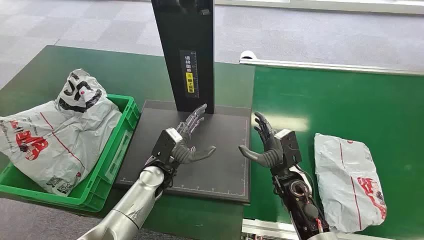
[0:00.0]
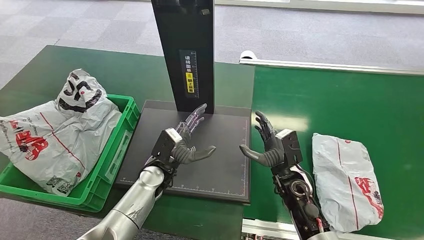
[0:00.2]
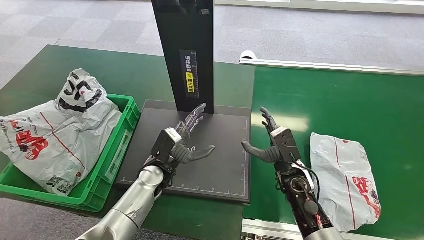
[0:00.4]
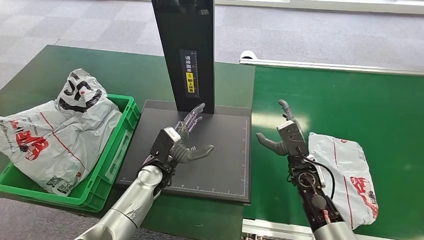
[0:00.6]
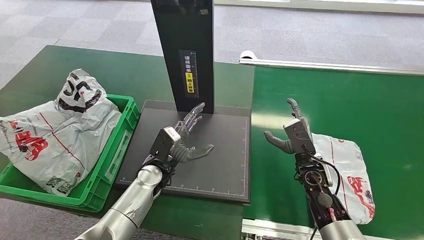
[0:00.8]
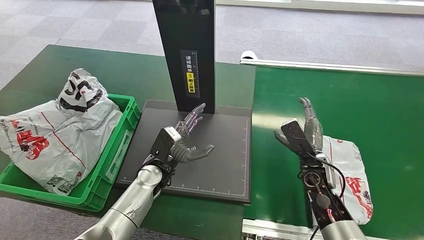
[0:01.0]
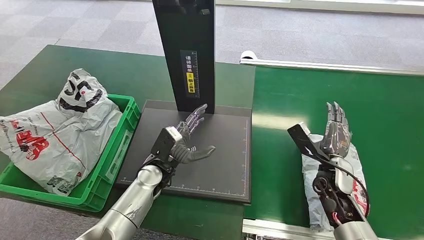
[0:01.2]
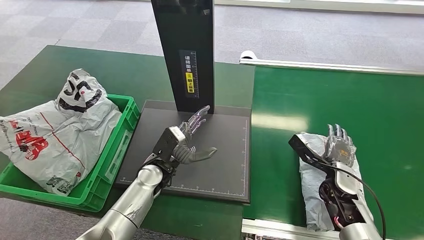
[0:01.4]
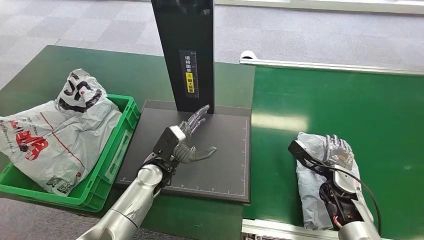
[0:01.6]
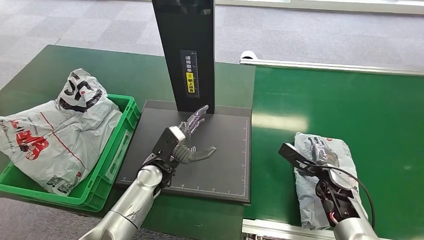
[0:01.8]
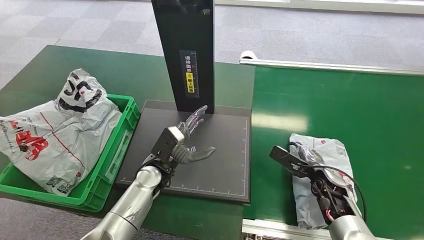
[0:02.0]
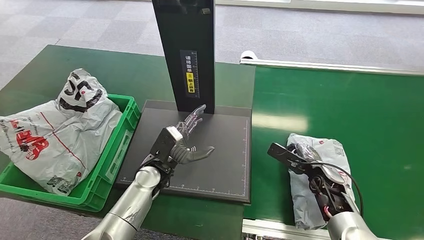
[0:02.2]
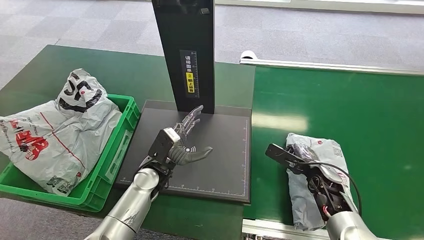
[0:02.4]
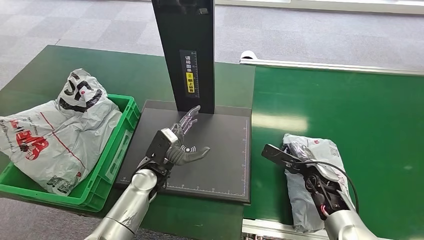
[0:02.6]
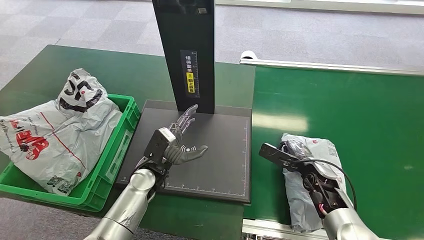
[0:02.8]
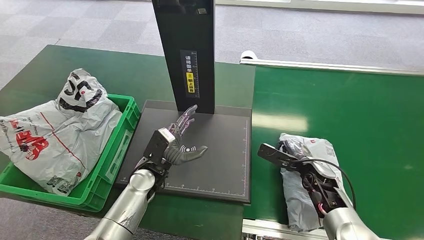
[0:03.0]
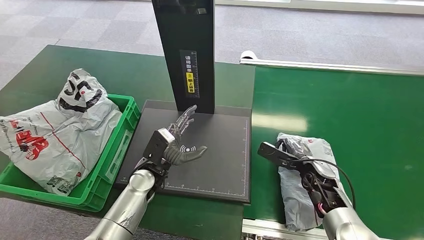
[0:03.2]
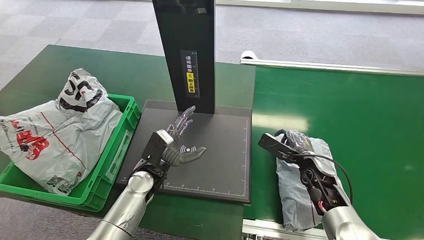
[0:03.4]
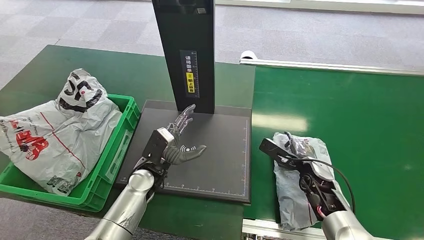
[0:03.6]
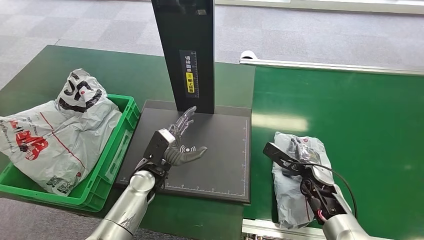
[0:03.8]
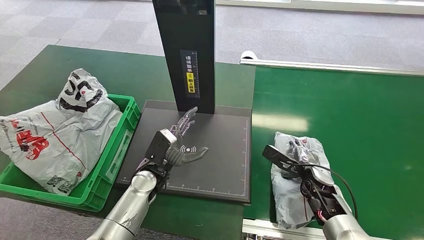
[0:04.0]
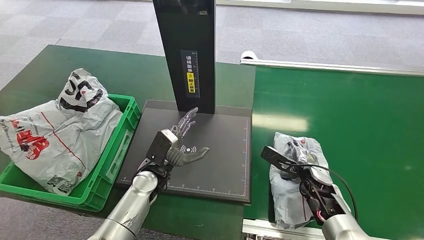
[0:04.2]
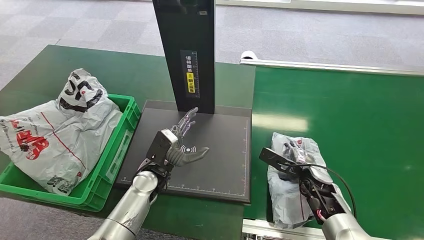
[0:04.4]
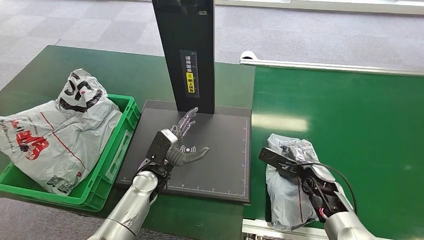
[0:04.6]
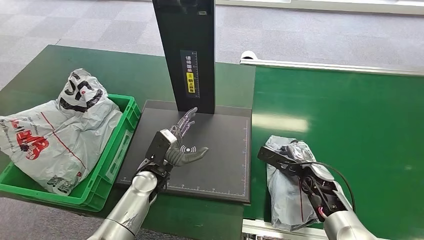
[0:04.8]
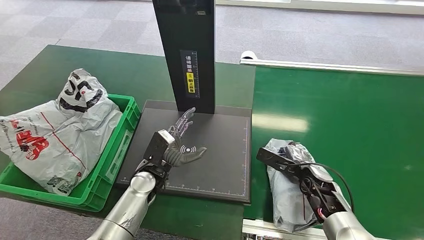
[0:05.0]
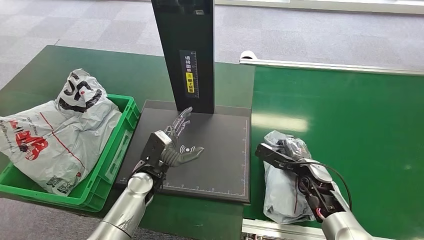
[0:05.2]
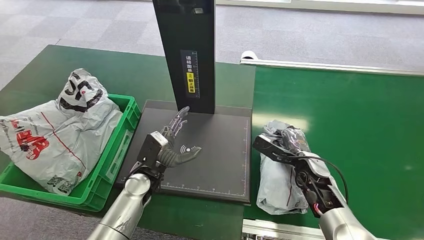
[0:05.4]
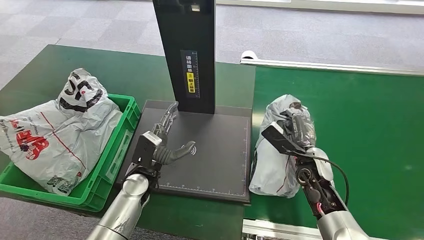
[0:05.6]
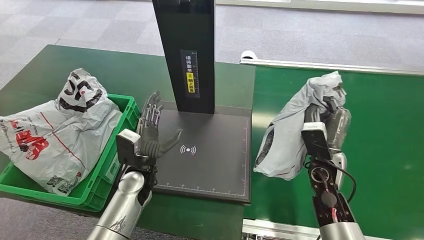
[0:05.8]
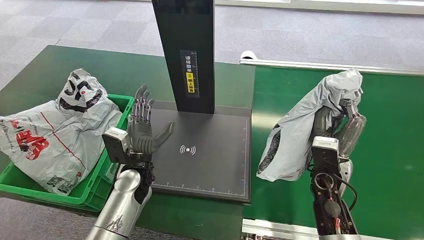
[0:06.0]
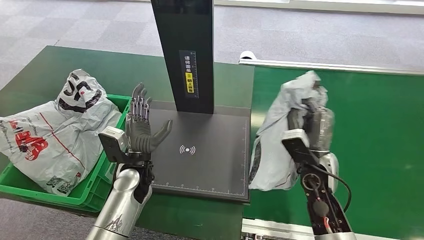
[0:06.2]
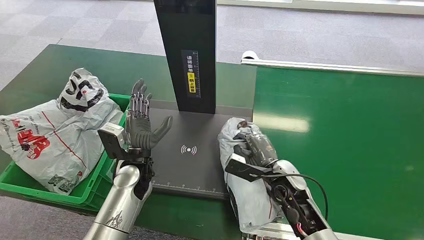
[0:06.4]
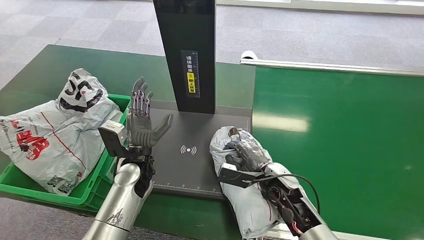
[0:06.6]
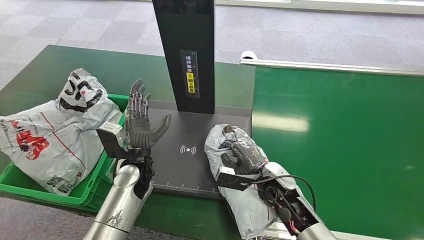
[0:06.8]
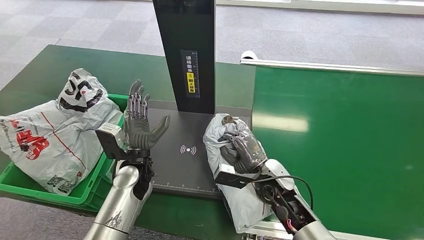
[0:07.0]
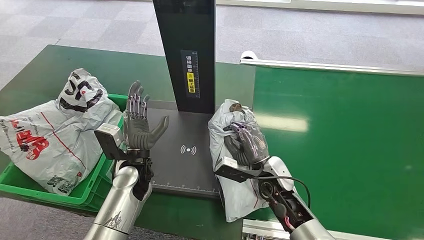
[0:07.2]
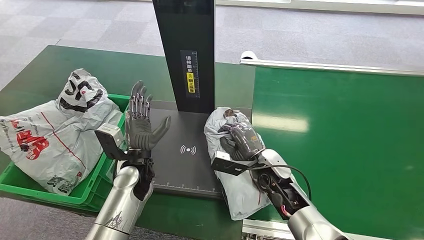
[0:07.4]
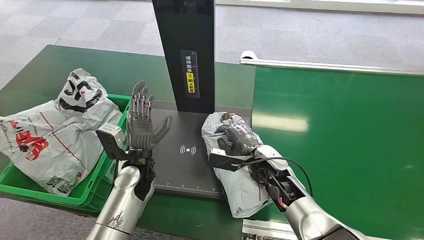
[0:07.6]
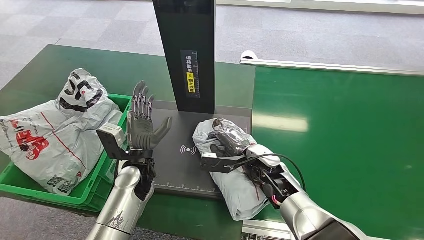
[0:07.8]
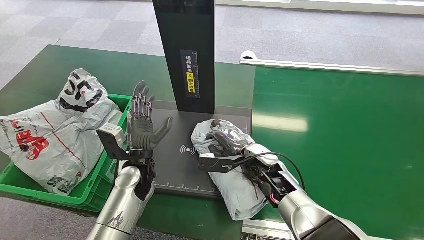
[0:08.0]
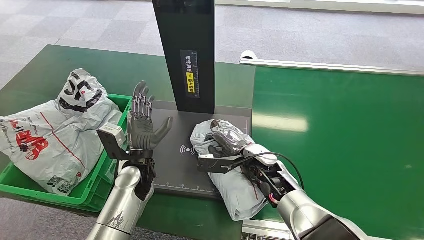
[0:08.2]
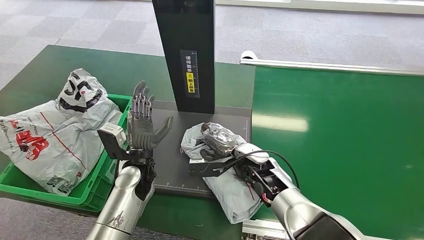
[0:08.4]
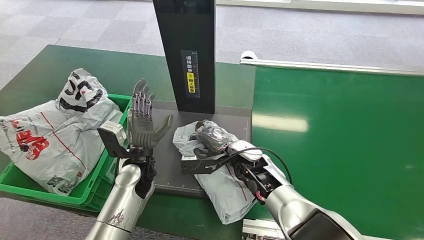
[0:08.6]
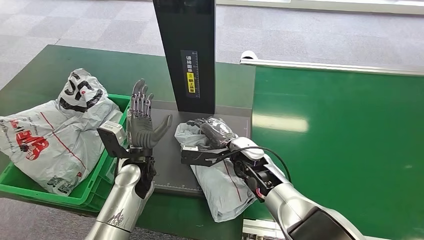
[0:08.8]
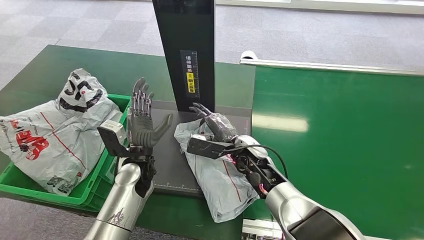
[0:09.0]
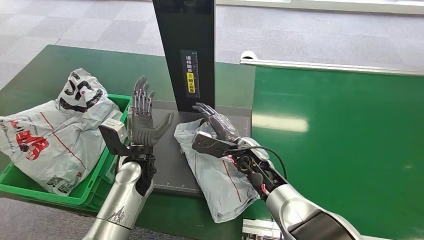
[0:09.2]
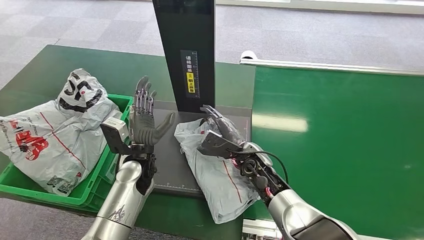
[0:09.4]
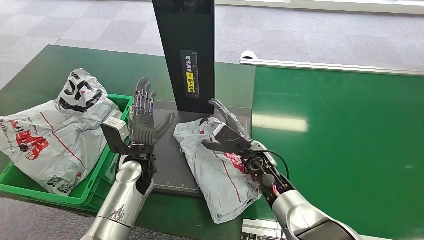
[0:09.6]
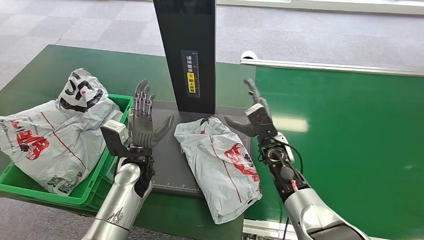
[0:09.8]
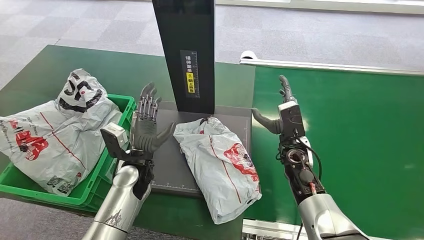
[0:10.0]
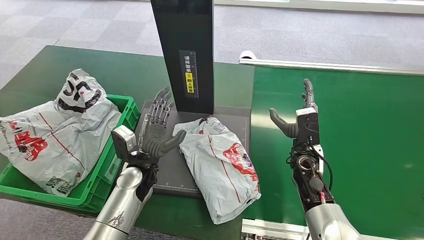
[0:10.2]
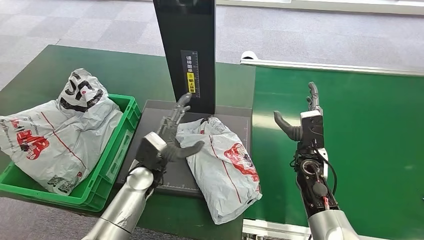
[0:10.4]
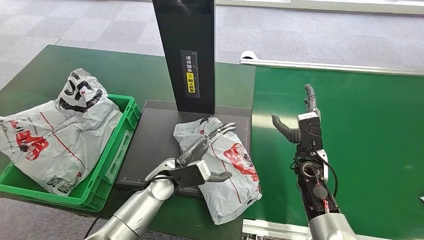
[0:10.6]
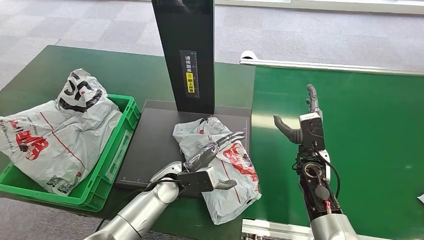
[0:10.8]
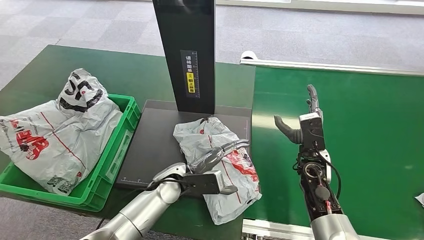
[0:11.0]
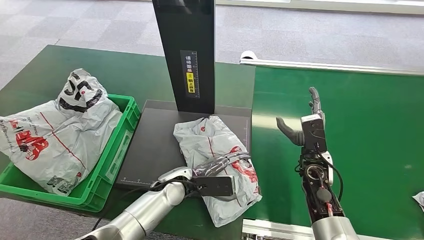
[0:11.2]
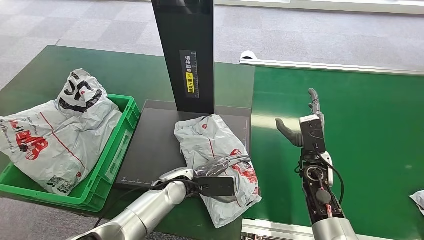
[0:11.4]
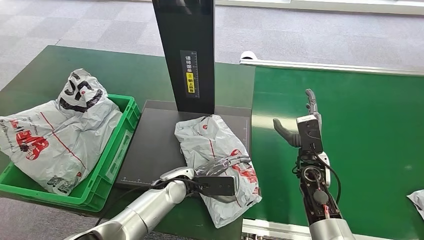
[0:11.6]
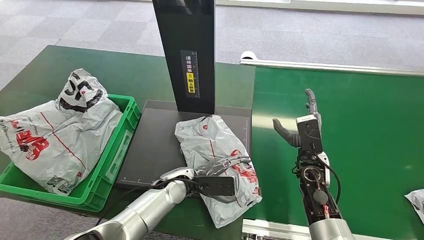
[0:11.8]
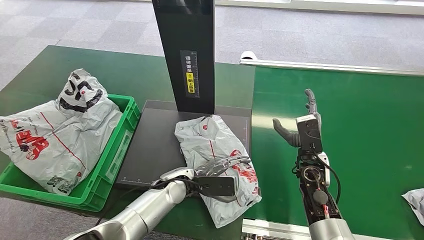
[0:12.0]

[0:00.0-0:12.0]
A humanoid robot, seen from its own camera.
Step, 0:00.0 to 0:06.0: Pick up the package from the conveyor belt.
Step, 0:06.2 to 0:09.8: Place the package onto the inbound machine.
0:01.6 to 0:03.0: The right hand moves approximately 5 cm.
0:03.0 to 0:04.4: The hands move only a little.
0:04.4 to 0:06.0: The right hand goes approximately 10 cm upward.
0:06.0 to 0:07.6: The right hand shifts roughly 10 cm to the left and downward.
0:07.6 to 0:09.0: The right hand goes roughly 5 cm to the left.
0:09.0 to 0:10.4: The right hand is displaced to the right by some 15 cm.
0:10.4 to 0:12.0: The left hand moves to the right, about 5 cm.

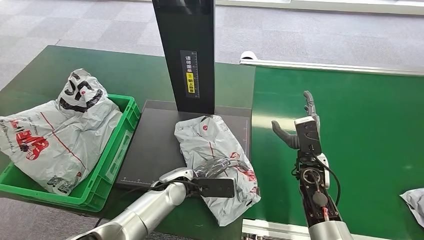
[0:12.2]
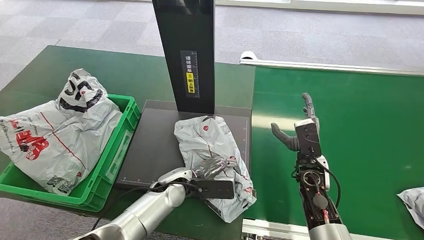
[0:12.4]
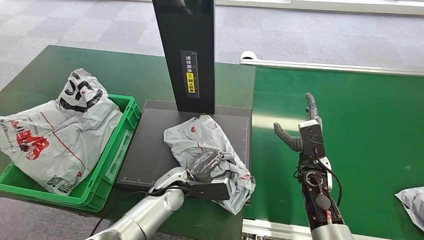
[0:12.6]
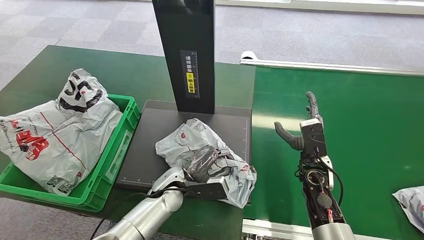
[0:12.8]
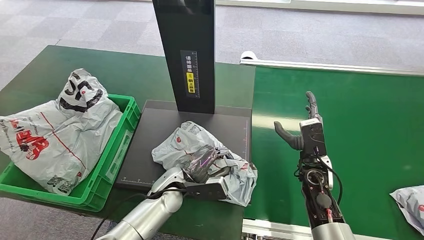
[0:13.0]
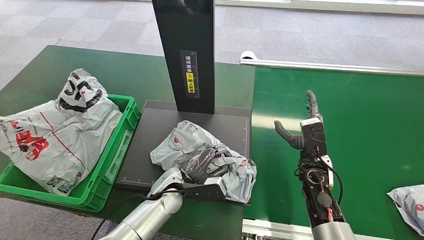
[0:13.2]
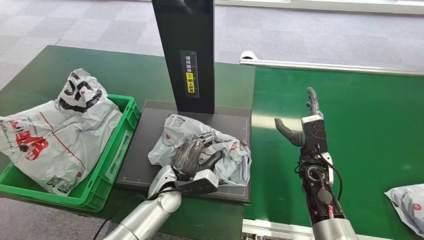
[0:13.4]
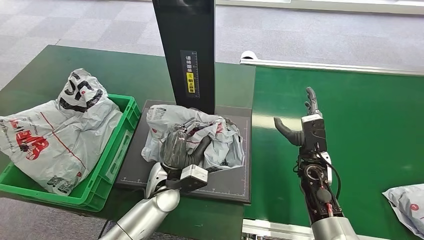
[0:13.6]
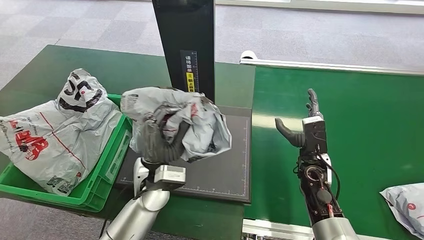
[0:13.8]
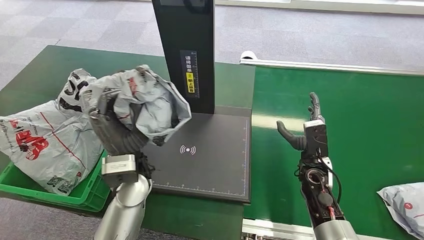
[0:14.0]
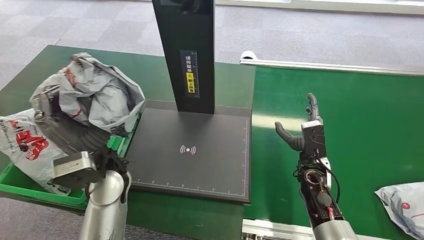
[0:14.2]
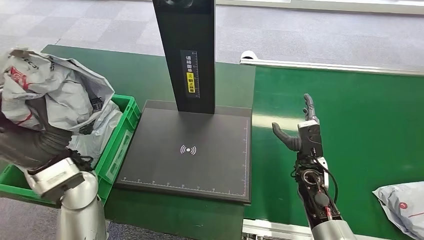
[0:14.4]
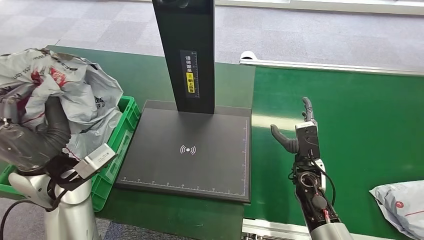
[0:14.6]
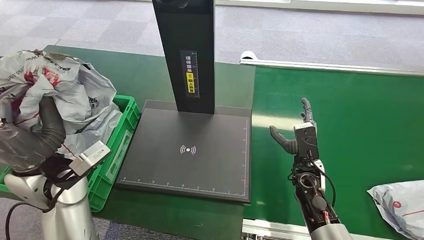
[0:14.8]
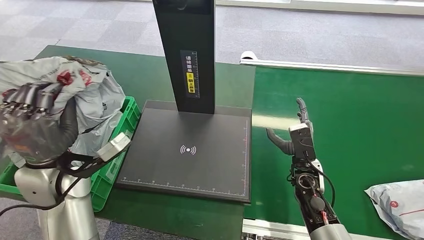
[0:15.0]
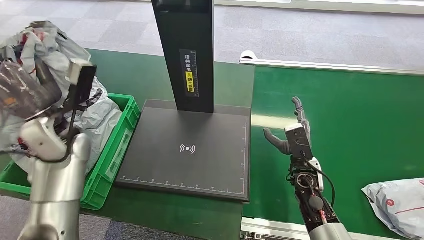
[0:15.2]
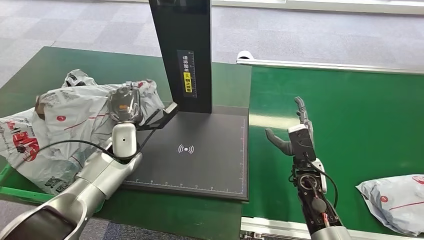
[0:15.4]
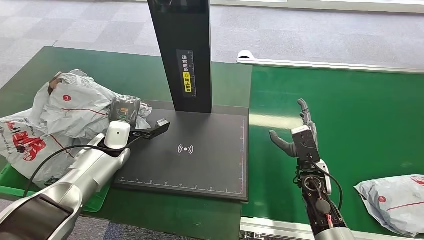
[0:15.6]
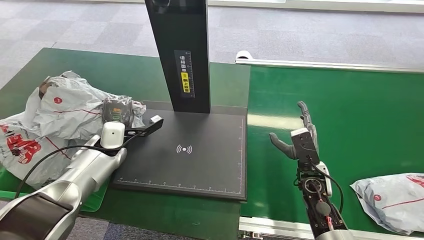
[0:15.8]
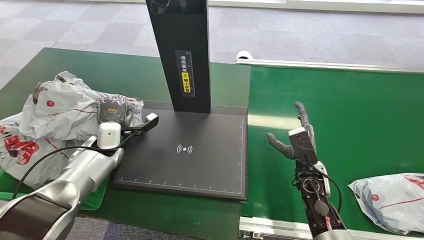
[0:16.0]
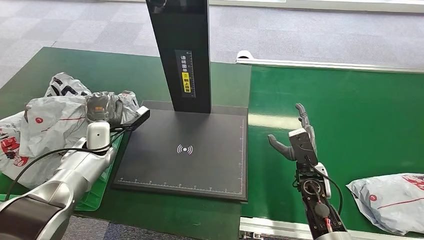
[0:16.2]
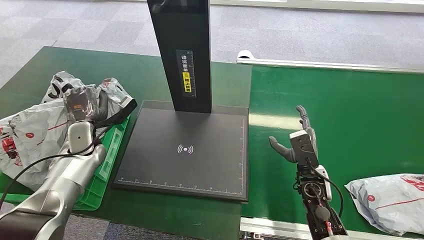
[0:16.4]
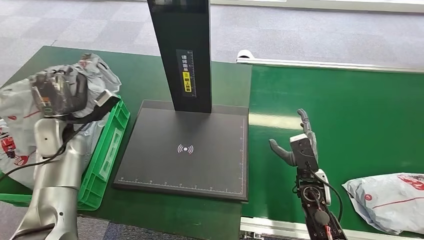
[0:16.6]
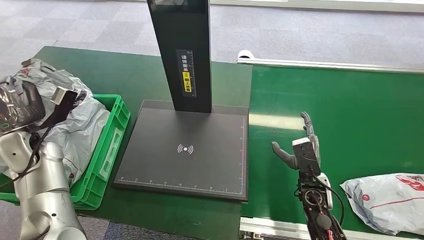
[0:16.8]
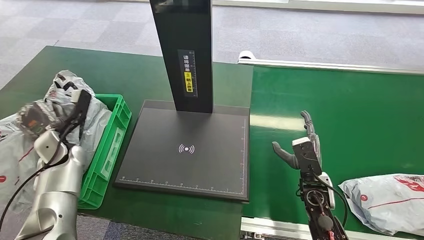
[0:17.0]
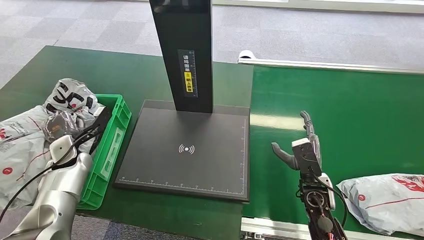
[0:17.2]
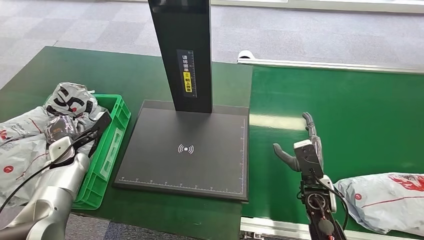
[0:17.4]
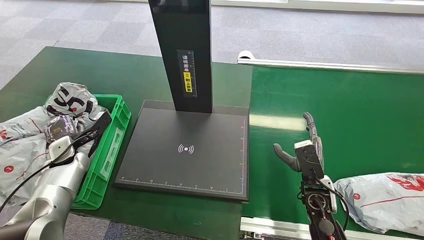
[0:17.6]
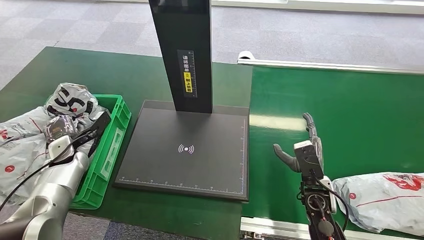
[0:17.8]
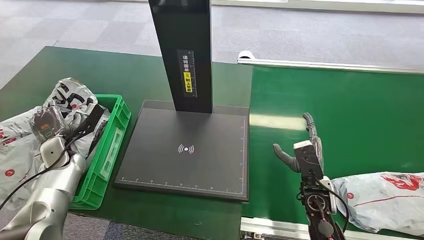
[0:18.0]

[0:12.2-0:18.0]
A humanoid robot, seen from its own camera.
Step, 0:12.2 to 0:14.2: Pick up the package from the inbound machine.
Step, 0:14.4 to 0:17.8: Place the package into the parcel locker.
0:16.6 to 0:18.0: The left hand moves downward, approximately 10 cm.
